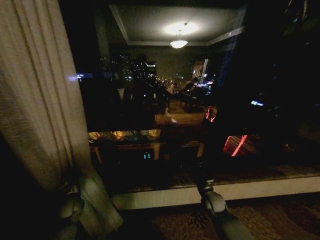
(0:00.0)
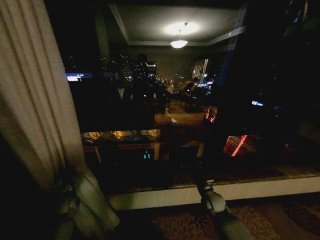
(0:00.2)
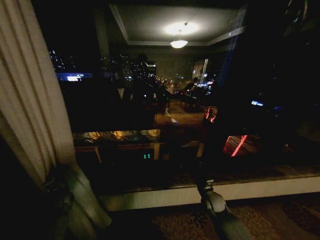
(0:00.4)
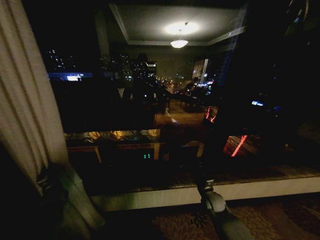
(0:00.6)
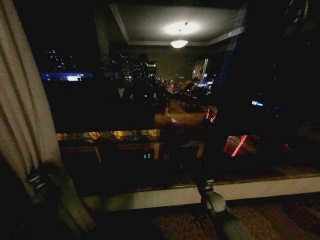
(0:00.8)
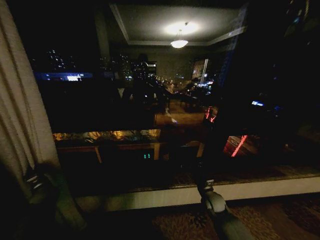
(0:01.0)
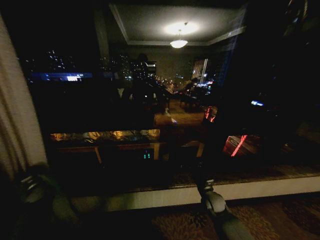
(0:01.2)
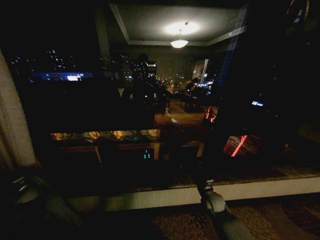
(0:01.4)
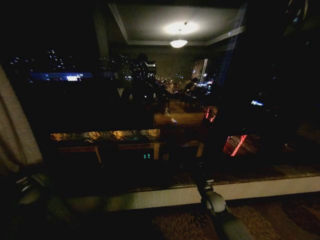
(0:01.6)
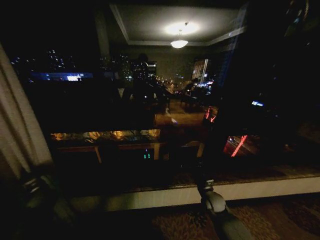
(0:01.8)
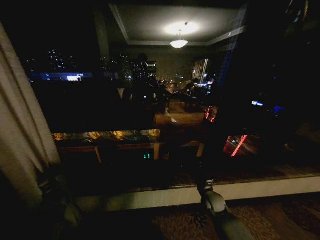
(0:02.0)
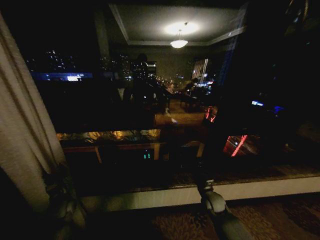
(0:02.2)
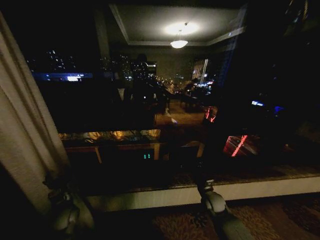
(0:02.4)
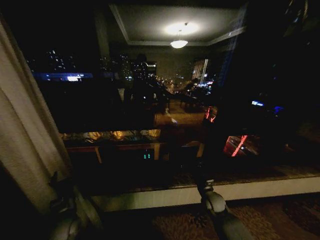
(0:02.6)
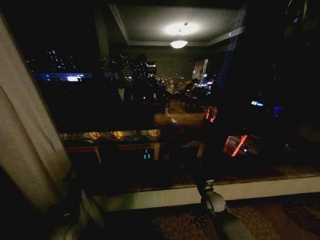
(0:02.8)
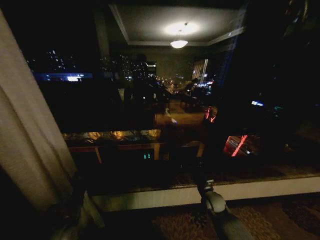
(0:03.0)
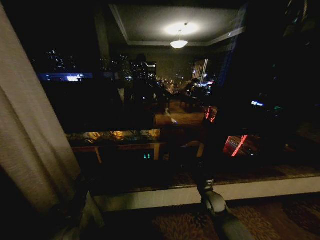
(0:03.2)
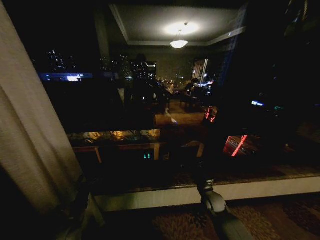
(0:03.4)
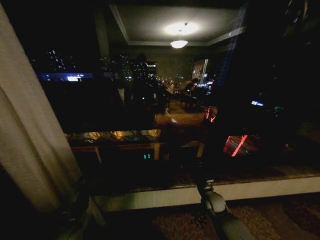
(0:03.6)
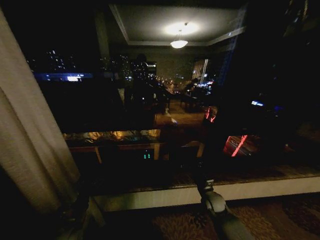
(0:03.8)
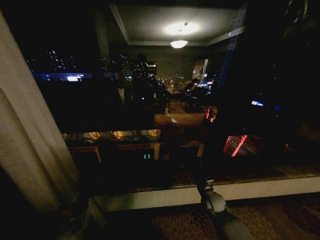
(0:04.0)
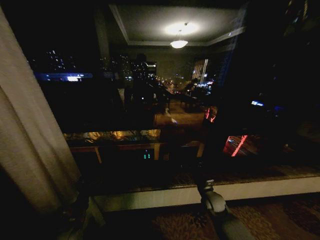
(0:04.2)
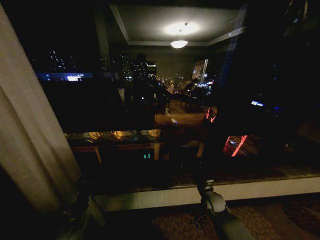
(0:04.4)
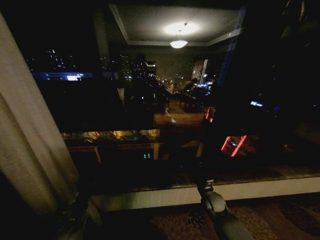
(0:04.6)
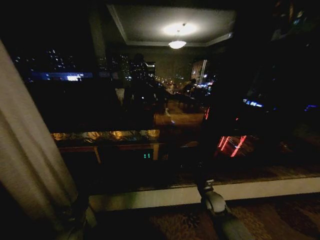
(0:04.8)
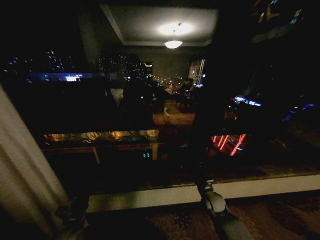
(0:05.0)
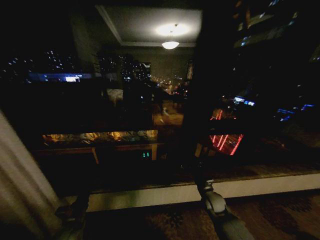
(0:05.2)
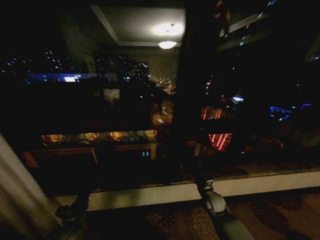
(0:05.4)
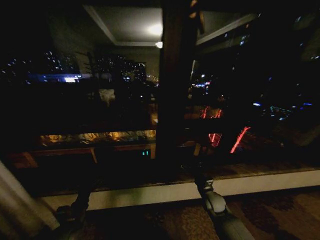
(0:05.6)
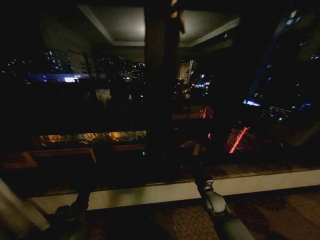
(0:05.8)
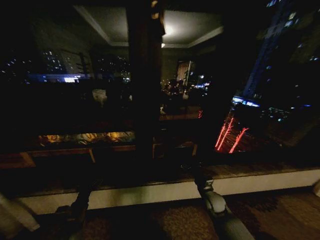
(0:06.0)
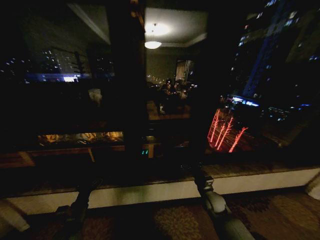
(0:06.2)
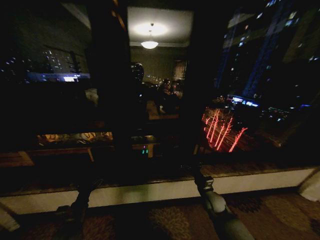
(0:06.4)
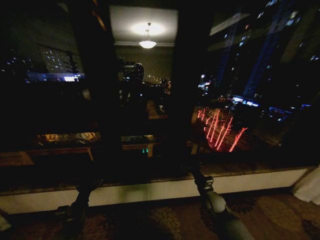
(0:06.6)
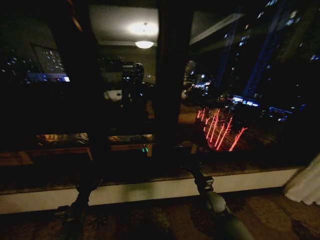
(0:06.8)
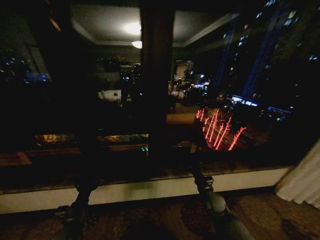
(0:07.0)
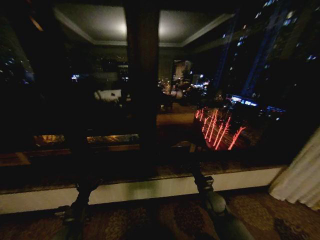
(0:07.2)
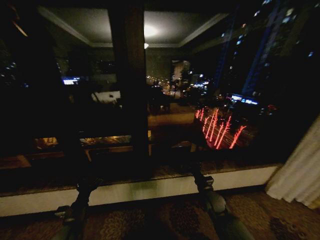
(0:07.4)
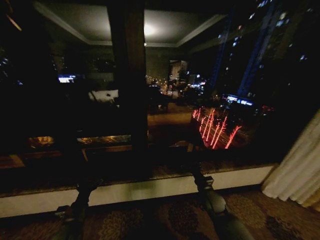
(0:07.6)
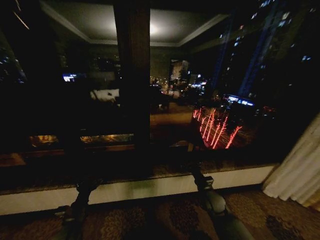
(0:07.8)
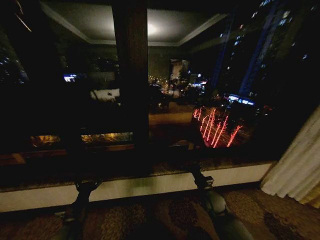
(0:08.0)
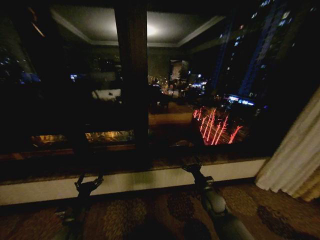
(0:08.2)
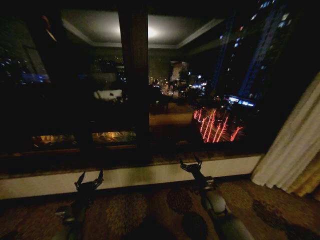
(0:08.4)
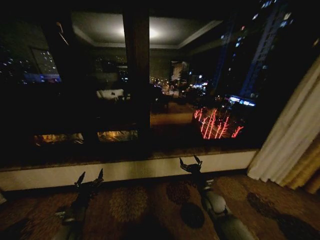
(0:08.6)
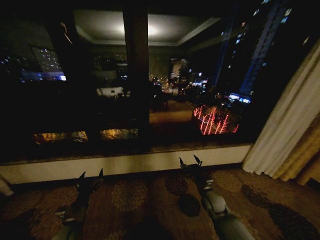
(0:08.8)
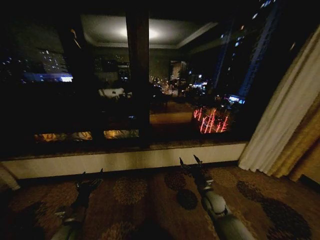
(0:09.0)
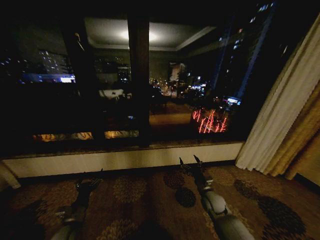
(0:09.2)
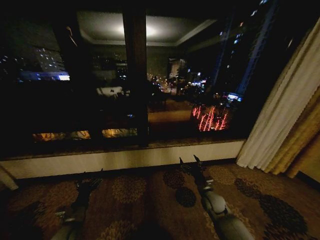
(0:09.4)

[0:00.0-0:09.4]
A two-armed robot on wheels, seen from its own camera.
Task of the whole recording: Open the curtains by pulling them apart, changing their state from closed to fully open.
0:00.0 to 0:01.6: The left gripper is displaced to the left by approximately 20 cm.
0:01.6 to 0:03.2: The left gripper is displaced to the right and backward by approximately 30 cm, and opens its fingers.
0:03.2 to 0:04.8: The grippers move only a little.
